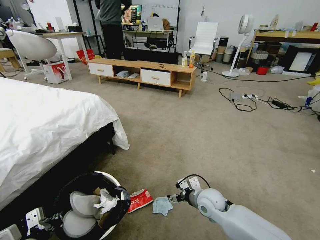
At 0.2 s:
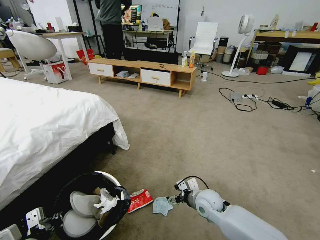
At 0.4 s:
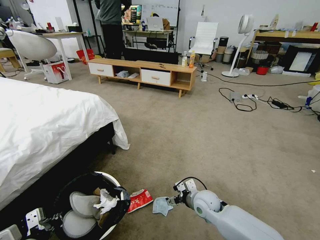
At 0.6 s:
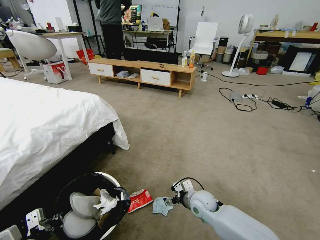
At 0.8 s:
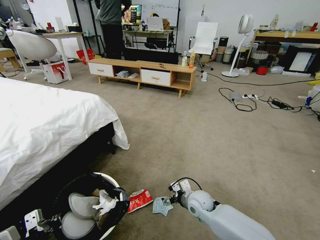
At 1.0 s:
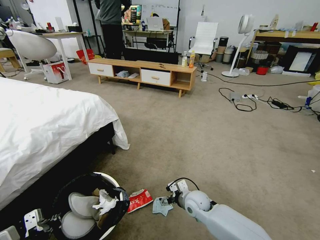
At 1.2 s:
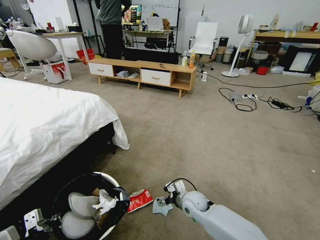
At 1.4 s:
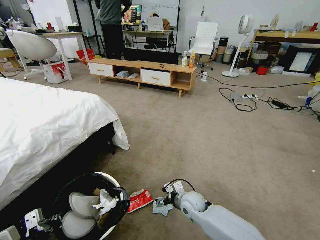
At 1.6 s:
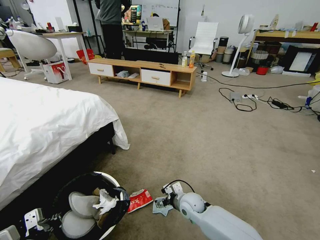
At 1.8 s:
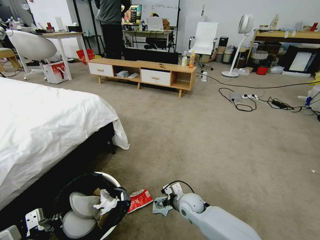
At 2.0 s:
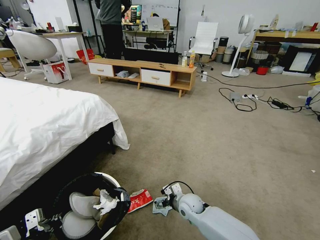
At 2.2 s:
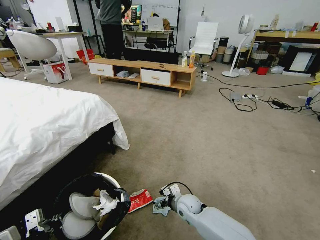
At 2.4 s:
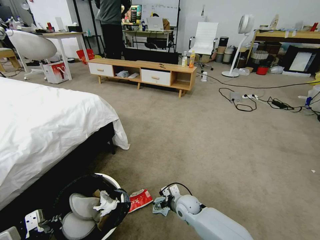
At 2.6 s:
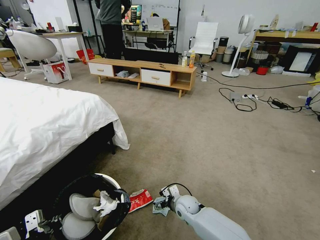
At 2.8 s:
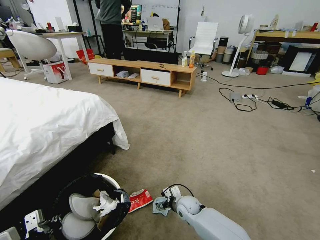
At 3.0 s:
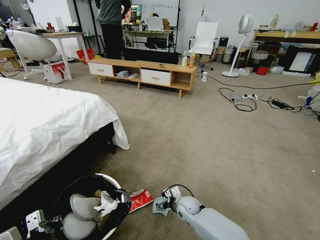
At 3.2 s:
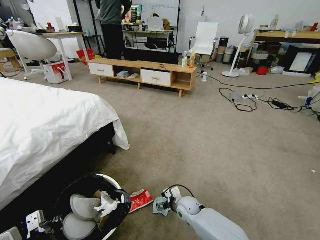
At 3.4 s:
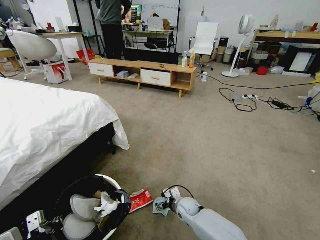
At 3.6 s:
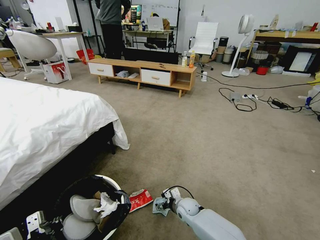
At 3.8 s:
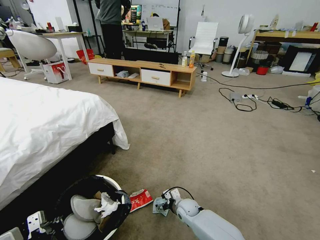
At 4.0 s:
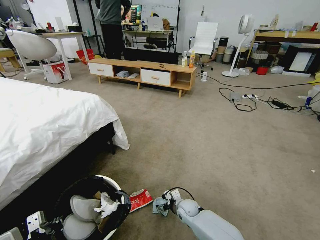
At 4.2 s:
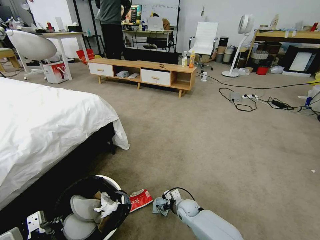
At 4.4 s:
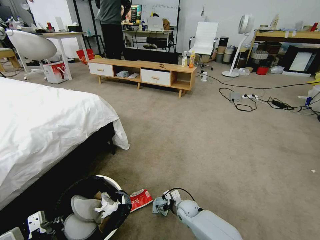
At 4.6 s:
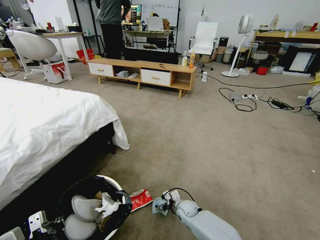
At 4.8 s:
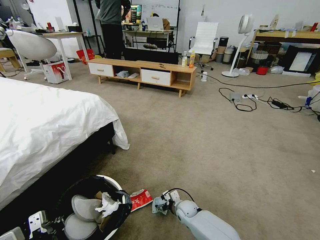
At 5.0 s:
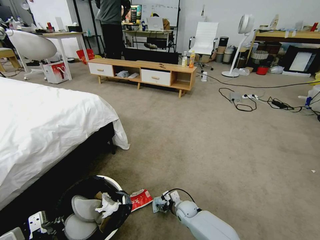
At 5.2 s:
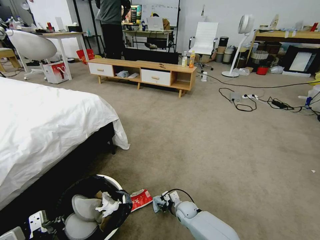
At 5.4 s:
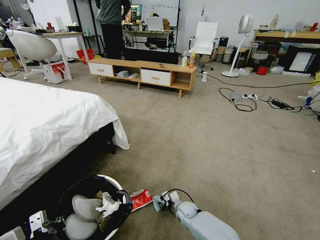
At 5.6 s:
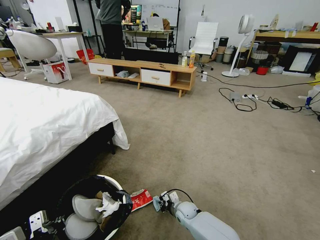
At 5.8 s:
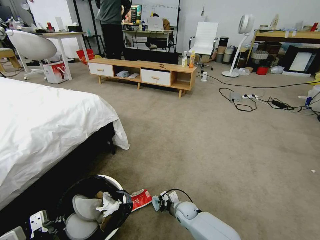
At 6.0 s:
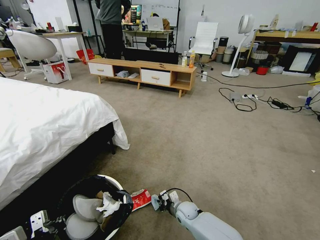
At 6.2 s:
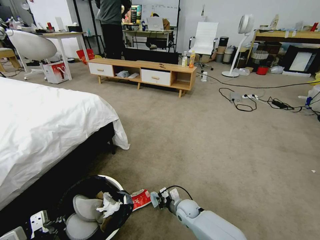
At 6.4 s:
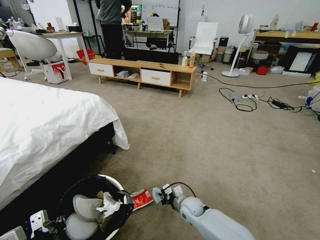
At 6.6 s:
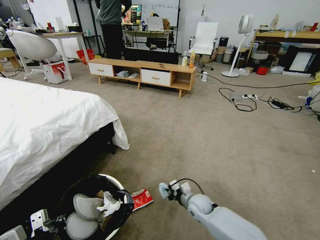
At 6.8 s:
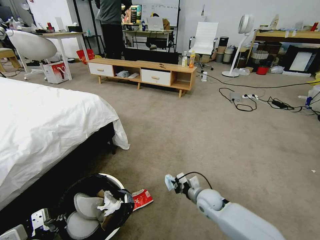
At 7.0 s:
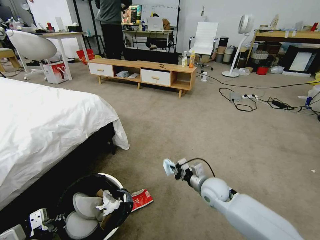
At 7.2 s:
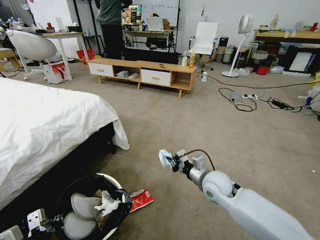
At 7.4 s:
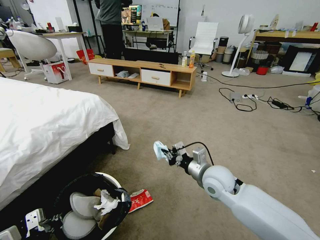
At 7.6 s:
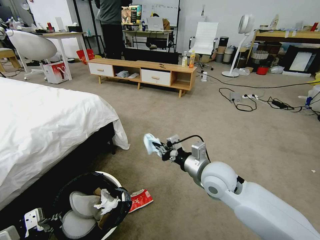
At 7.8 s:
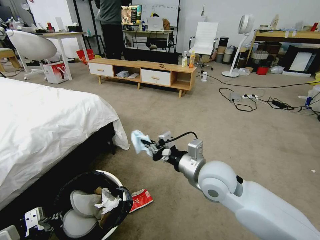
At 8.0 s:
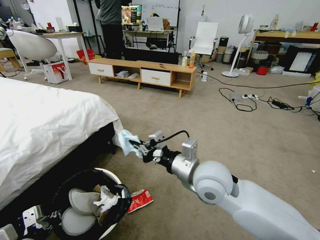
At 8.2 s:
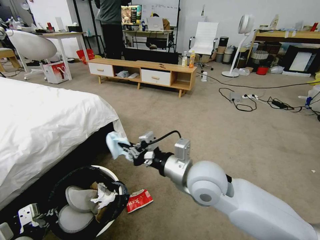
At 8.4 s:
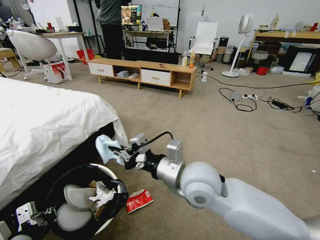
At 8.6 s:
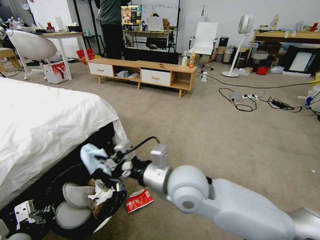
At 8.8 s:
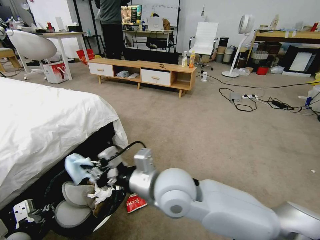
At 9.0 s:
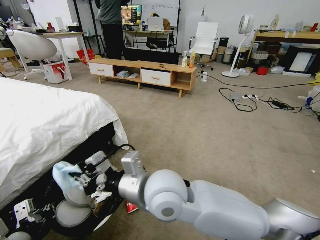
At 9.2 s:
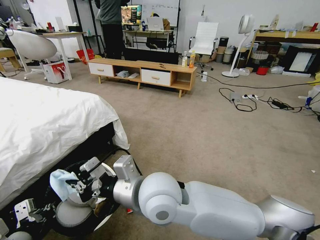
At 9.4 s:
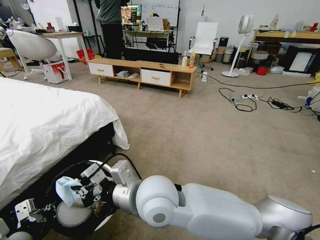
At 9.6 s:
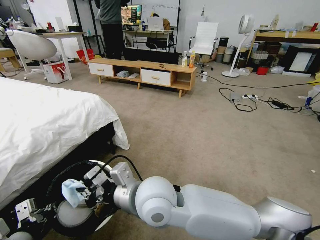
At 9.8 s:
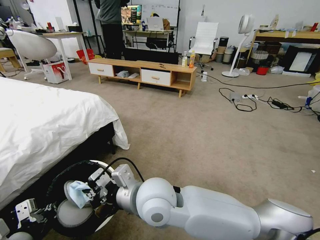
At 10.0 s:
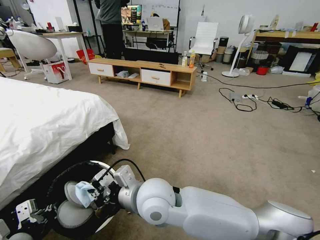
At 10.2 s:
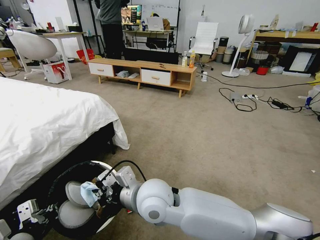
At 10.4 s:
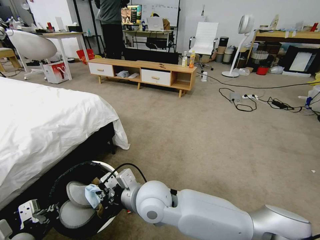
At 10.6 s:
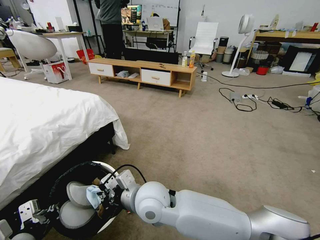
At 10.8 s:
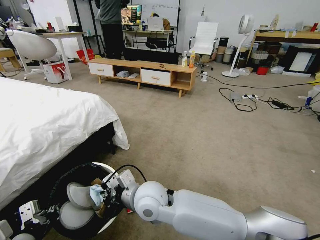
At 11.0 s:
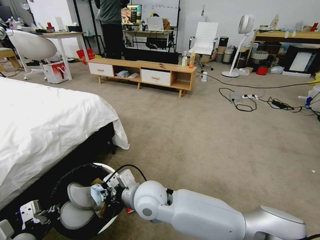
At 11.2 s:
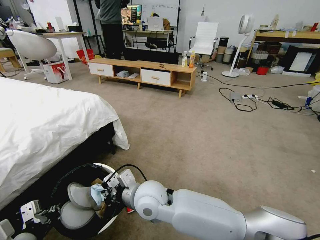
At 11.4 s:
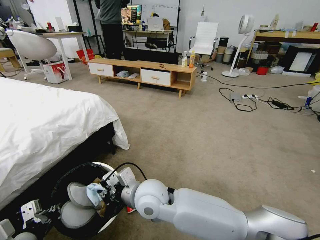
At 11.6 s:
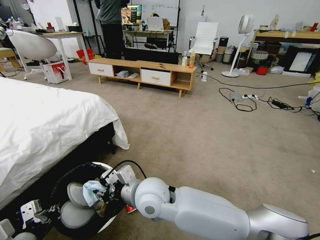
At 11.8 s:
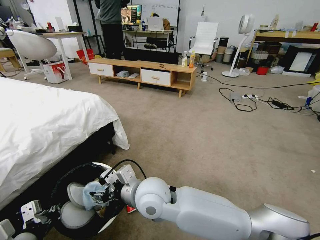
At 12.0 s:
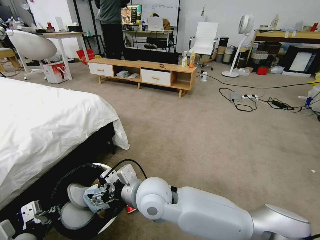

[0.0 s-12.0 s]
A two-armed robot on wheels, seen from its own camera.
Task of the whole recording: Pick up the trash bin and place the garbage on the floor into it.
0.0 to 1.6 s: The left gripper closes its fingers. The right gripper is displaced downward and to the left by approximately 10 cm.
1.6 to 3.0 s: The right gripper travels downward by roughly 5 cm.
3.0 to 4.4 s: The grippers make only small movements.
4.4 to 6.0 s: The right gripper closes up.
6.0 to 7.6 s: The right gripper goes roughly 30 cm upward.
7.6 to 9.0 s: The right gripper moves to the left, backward and upward, some 20 cm.
9.0 to 10.4 s: The right gripper goes some 10 cm downward.
10.4 to 12.0 s: The right gripper opens.

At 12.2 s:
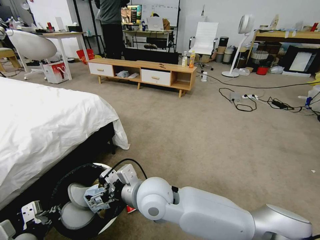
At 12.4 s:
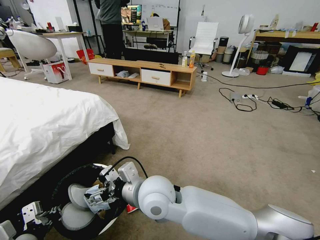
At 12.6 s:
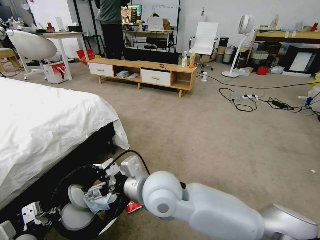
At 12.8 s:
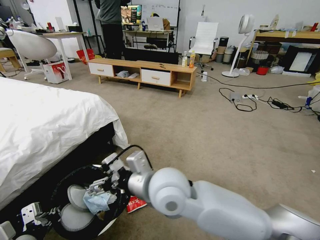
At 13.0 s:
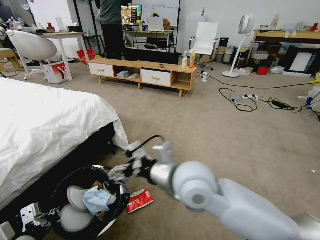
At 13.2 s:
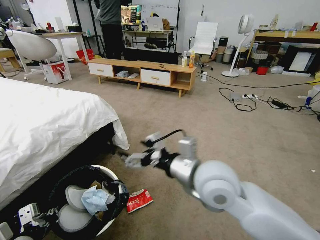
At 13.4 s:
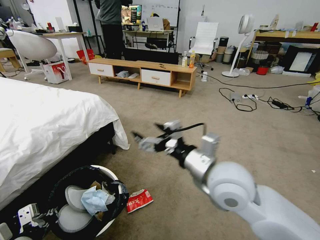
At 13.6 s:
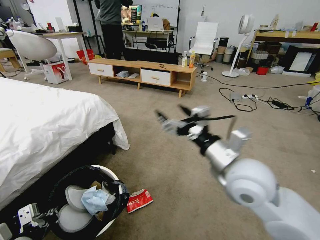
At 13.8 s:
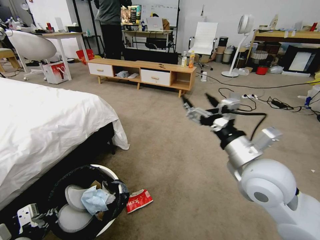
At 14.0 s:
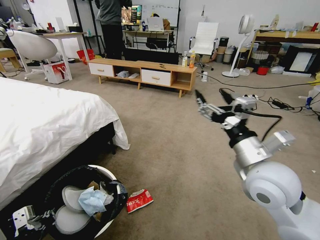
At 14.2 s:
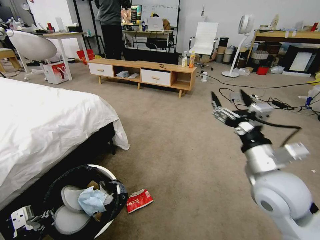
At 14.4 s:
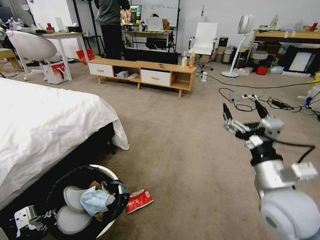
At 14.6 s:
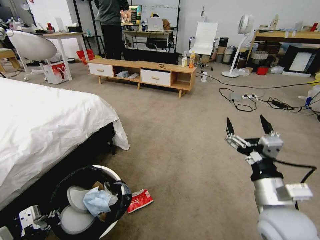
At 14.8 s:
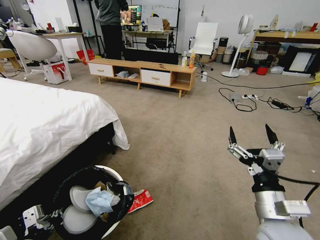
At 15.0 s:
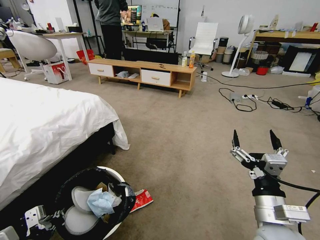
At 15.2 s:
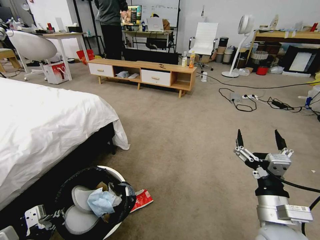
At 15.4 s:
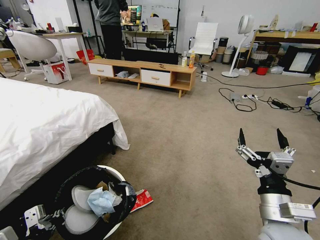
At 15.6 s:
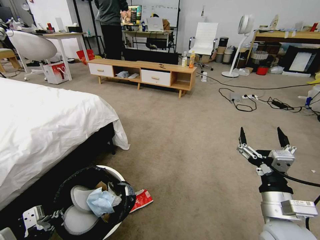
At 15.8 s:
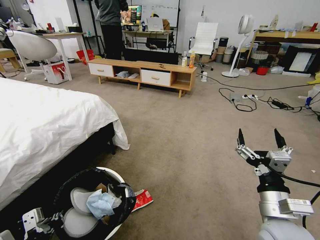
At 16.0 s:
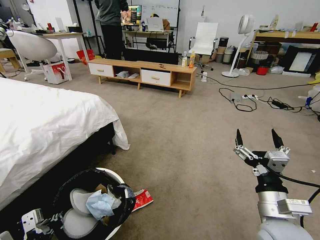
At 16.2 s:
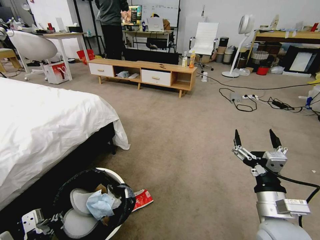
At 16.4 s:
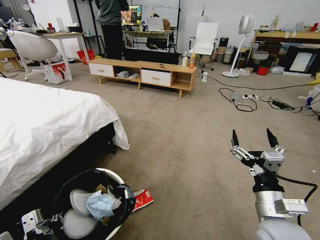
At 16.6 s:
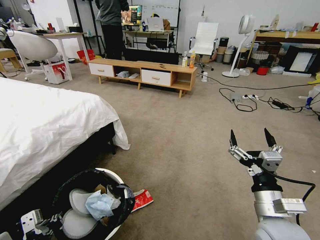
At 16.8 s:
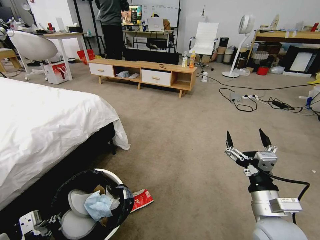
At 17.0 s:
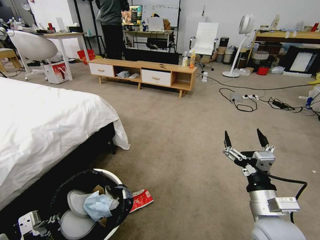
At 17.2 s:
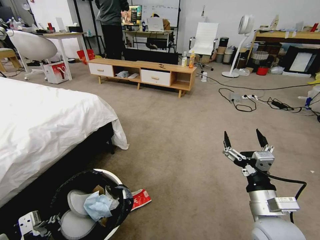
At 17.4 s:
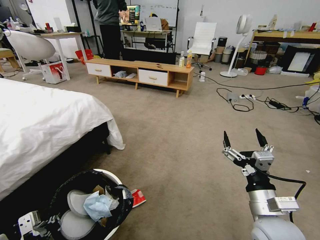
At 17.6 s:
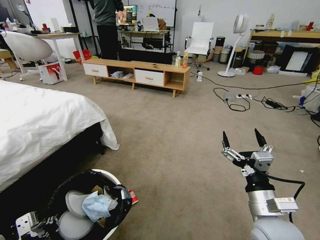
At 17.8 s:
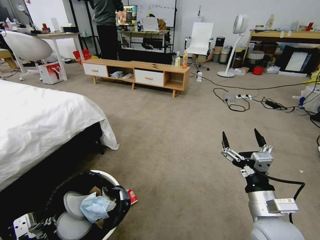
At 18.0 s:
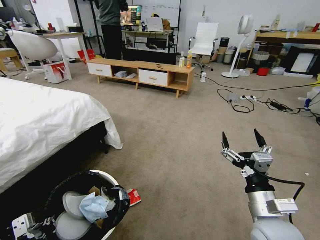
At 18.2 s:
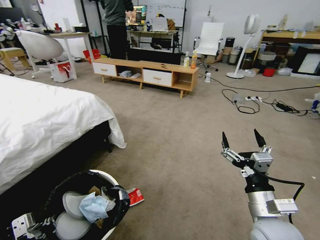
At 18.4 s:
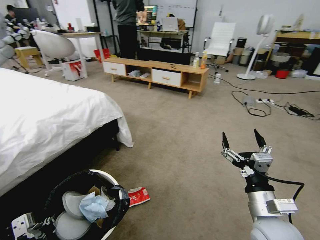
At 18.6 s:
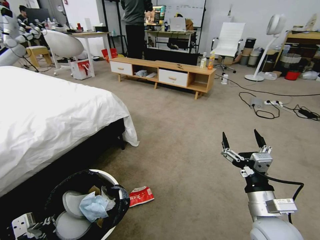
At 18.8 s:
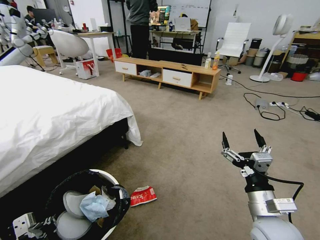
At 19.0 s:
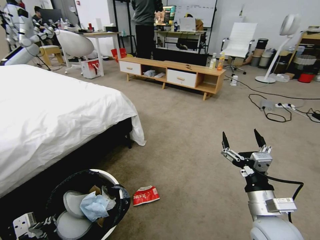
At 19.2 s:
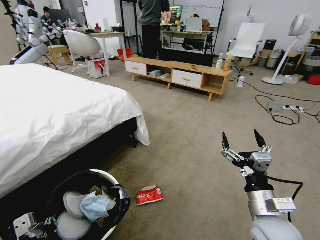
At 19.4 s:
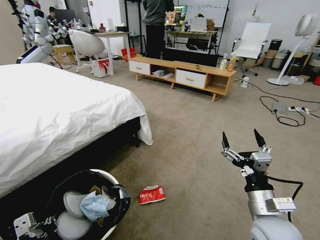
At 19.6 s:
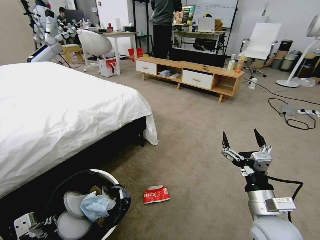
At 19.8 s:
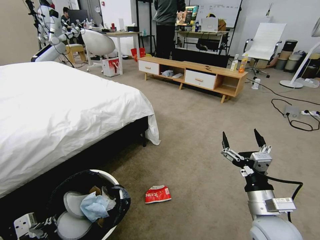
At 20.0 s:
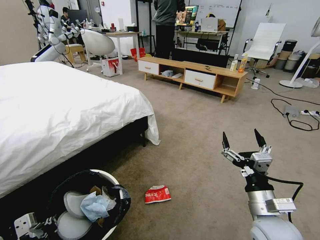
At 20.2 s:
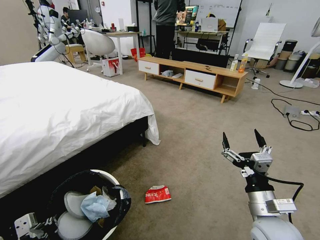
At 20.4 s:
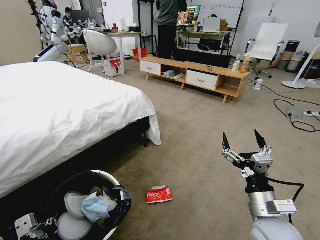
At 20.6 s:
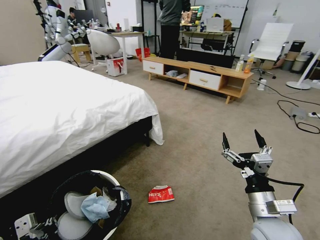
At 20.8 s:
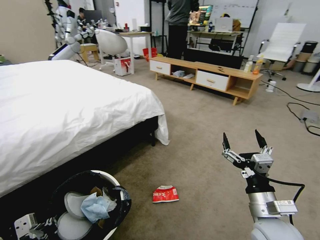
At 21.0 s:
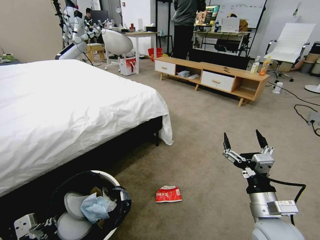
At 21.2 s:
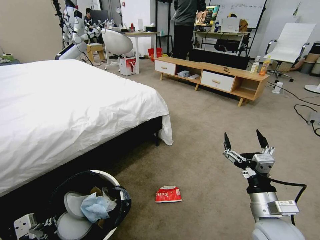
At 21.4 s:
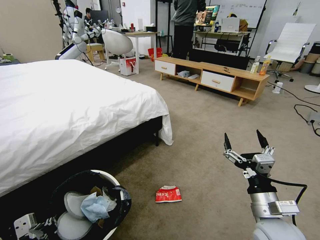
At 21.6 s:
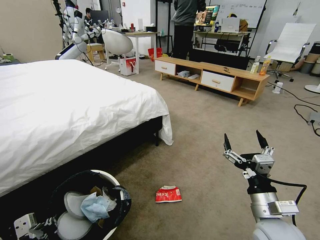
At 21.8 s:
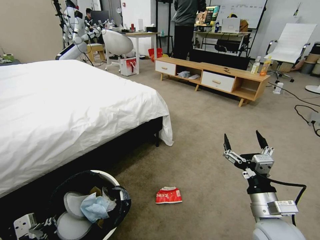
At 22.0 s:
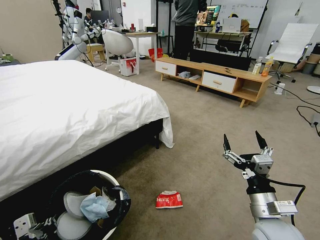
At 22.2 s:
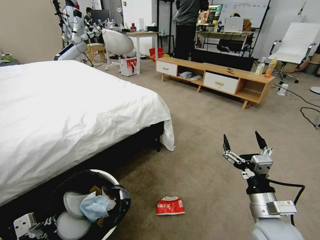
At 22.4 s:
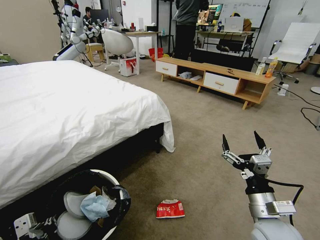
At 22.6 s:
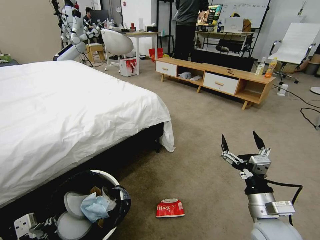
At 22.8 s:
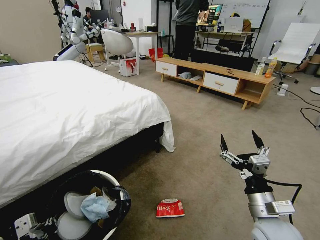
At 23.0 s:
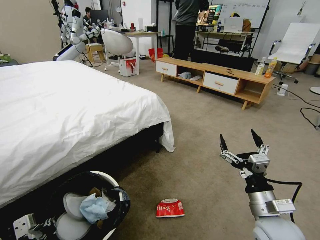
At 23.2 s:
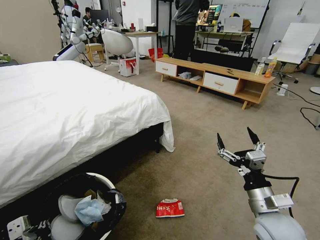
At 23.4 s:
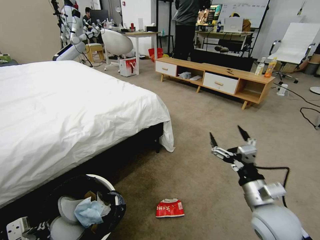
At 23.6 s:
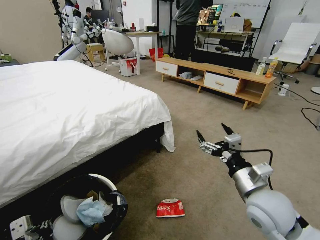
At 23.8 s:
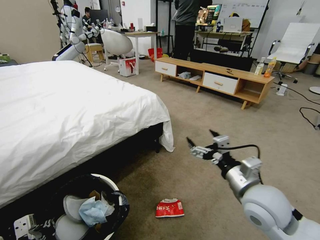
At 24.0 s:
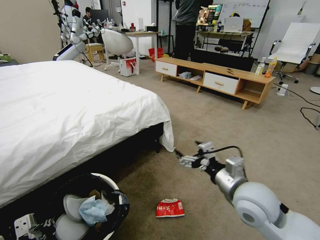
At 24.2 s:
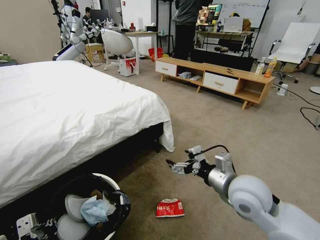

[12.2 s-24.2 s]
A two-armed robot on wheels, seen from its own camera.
Task of the whole recording: Pick up the trash bin and place the garbage on the floor into it.
12.2 to 13.8 s: The right gripper is displaced to the right by approximately 25 cm.
13.8 to 15.2 s: The right gripper heads downward and backward, covering roughly 15 cm.
15.2 to 16.6 s: The grippers stay close to where they were, moving slightly.
22.6 to 24.2 s: The right gripper travels upward, forward and to the left by about 10 cm.
